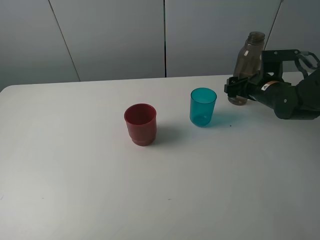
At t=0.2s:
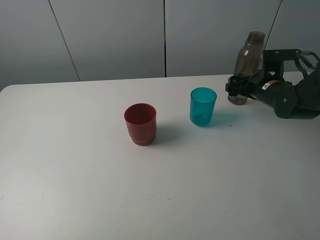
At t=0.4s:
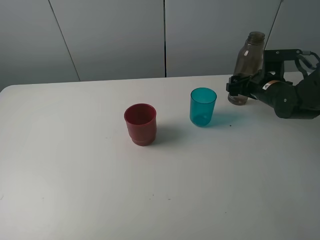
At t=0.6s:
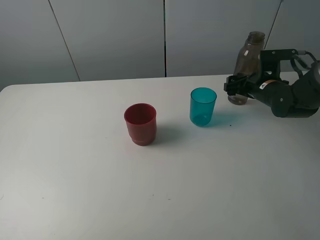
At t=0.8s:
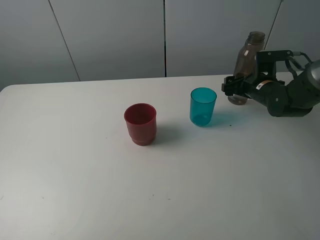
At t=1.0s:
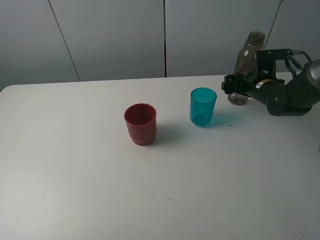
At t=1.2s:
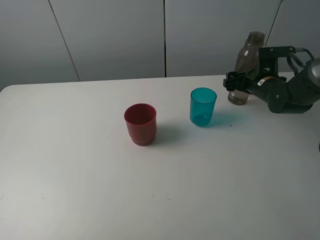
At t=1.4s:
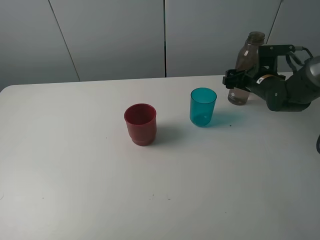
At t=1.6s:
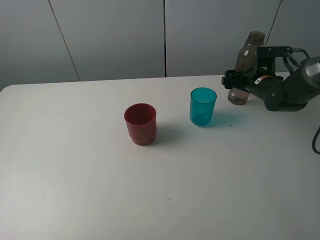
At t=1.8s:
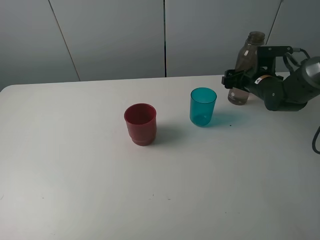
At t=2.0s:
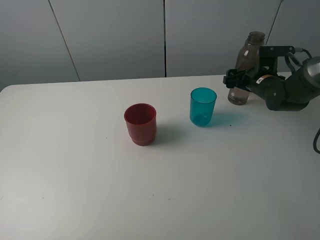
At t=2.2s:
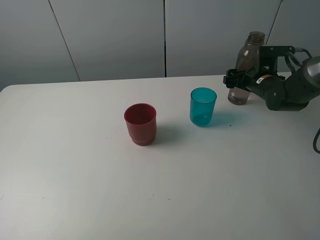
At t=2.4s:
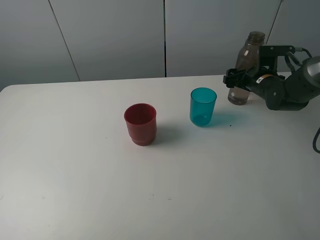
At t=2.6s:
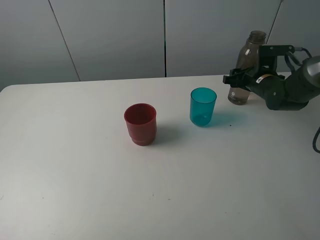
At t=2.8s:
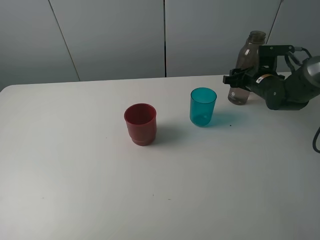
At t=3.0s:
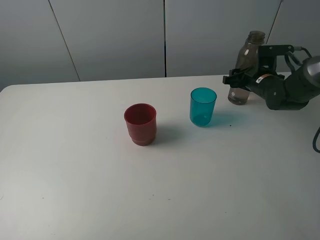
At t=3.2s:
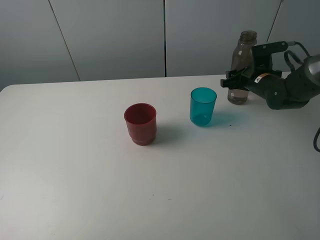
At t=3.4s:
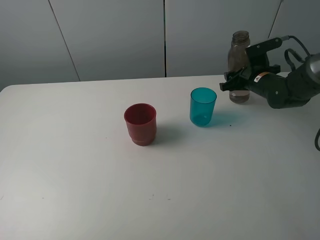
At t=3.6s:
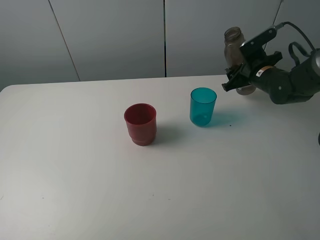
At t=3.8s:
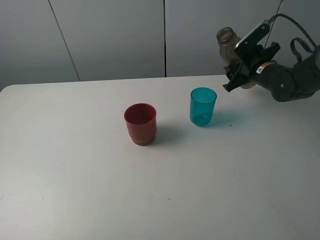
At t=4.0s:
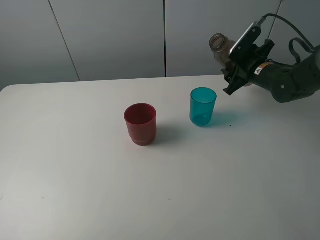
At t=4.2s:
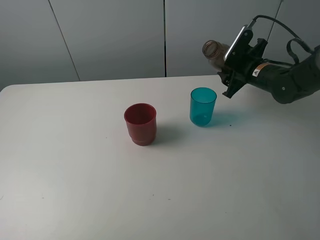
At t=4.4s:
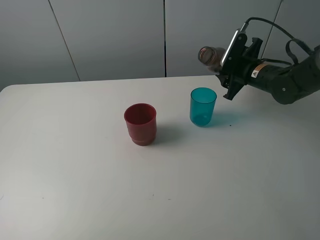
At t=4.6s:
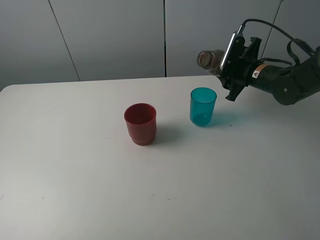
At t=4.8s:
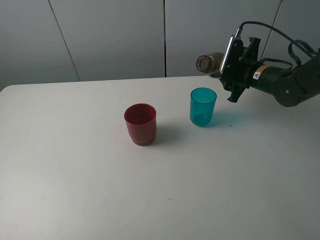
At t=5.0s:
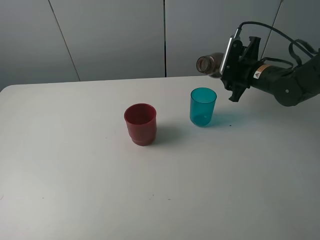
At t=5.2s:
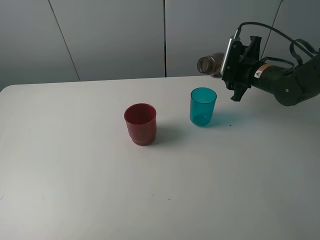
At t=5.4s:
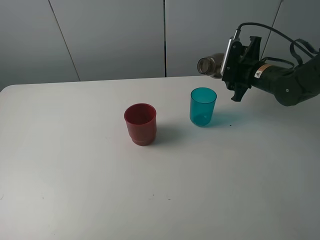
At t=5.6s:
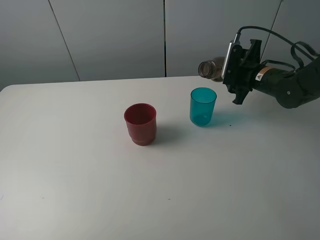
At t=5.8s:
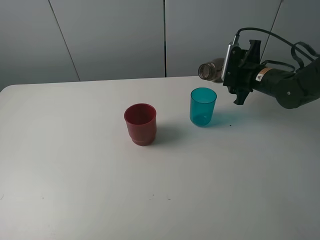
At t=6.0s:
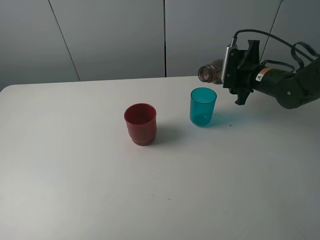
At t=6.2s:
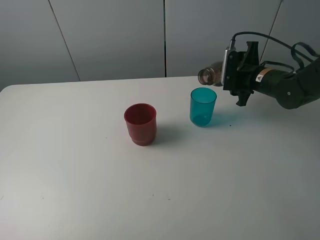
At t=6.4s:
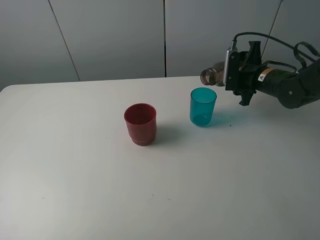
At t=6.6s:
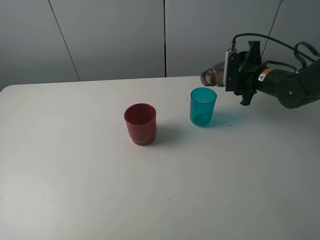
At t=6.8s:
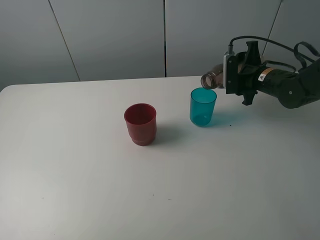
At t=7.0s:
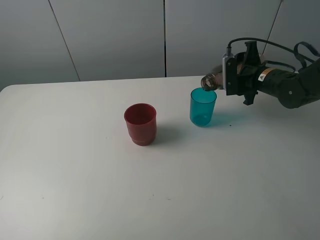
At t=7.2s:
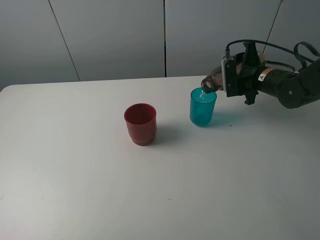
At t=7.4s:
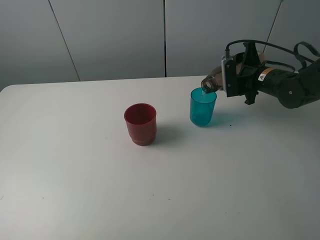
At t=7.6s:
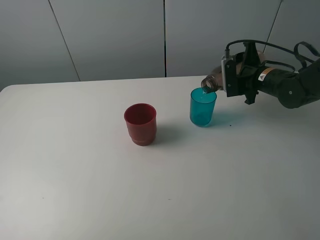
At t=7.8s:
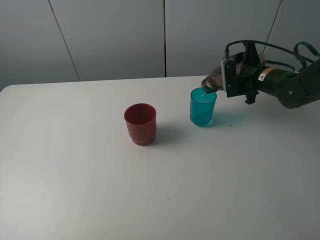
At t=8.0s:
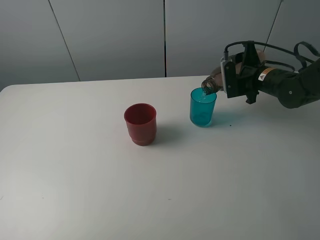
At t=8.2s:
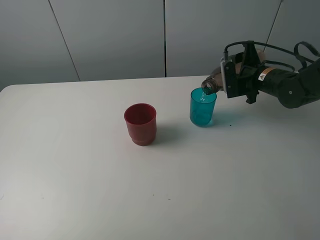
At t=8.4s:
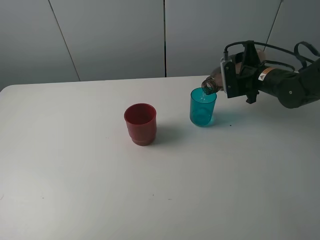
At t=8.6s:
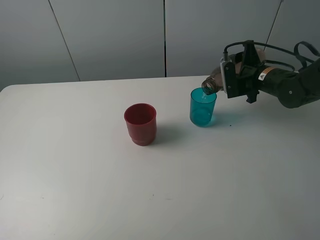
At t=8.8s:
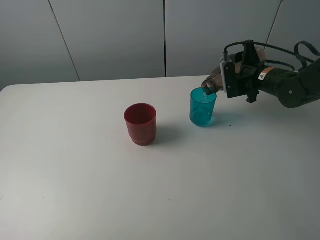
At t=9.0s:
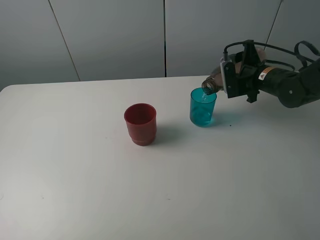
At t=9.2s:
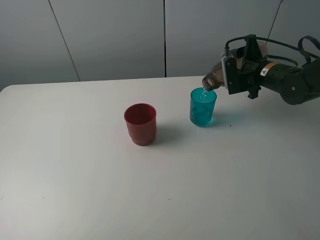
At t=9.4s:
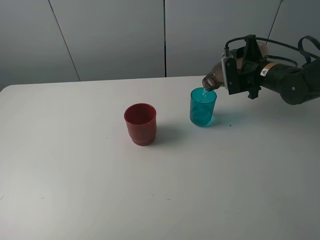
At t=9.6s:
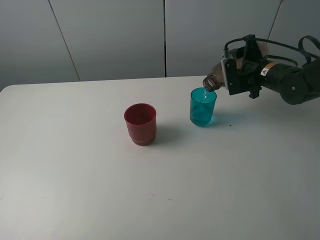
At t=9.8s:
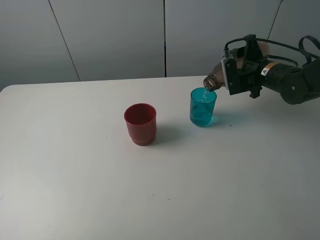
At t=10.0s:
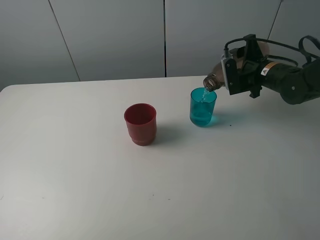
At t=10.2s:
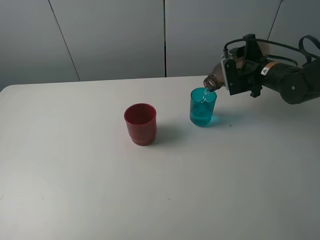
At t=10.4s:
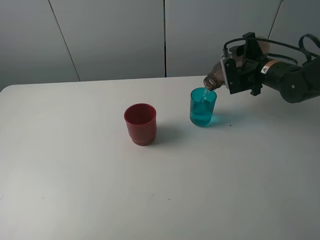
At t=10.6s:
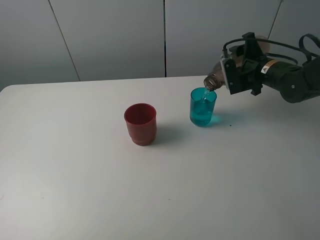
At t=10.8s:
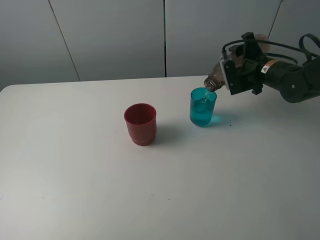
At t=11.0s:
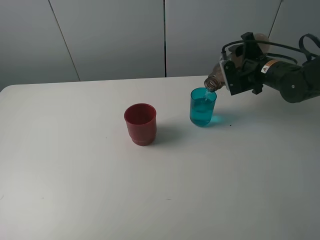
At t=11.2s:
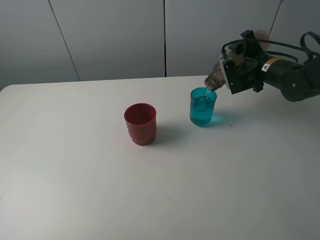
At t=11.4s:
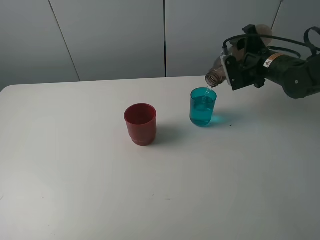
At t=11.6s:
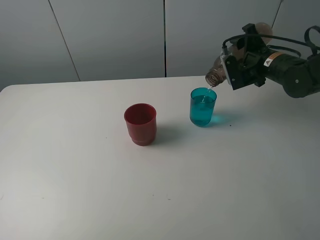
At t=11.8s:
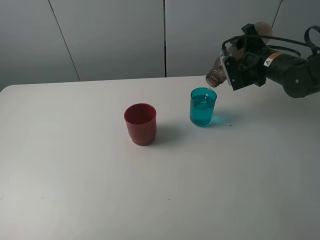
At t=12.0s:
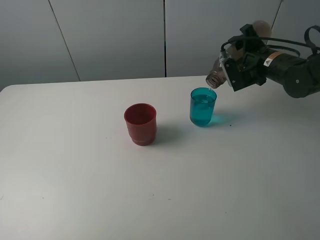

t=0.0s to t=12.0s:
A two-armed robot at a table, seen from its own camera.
Task of the whole recording: pick up the bottle and pour water into the cup, then pick up the cup containing water and pour it into another cup.
Step, t=0.0s to t=3.0s: Grasp the brown bottle with the right gripper.
t=0.0s to t=1.6s: The grippers stay close to where they were, moving slightly.
t=1.6s to t=3.0s: The right gripper closes.
t=4.4s to t=6.0s: The grippers make only small movements.
t=6.0s to t=7.6s: There are only small adjustments of the grippers.
t=7.6s to t=9.0s: Neither gripper changes place.
t=9.0s to t=12.0s: There are only small adjustments of the grippers.

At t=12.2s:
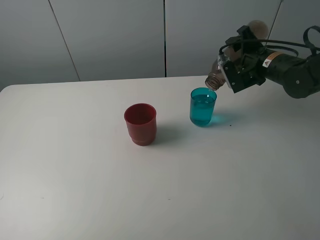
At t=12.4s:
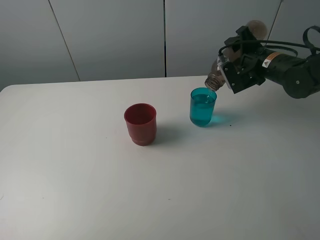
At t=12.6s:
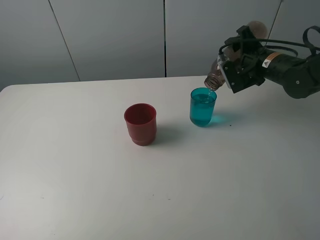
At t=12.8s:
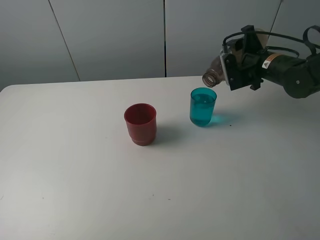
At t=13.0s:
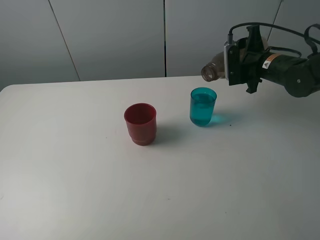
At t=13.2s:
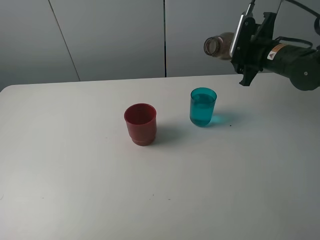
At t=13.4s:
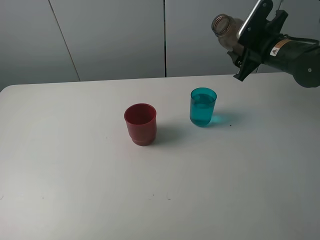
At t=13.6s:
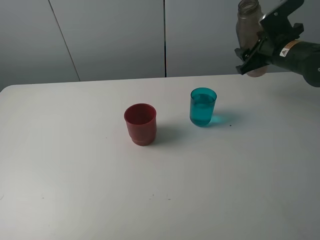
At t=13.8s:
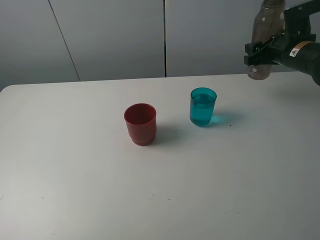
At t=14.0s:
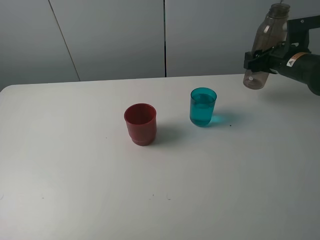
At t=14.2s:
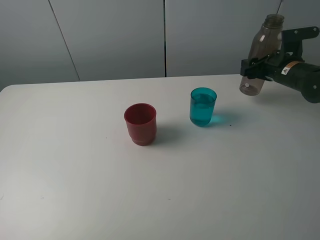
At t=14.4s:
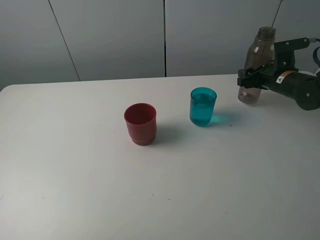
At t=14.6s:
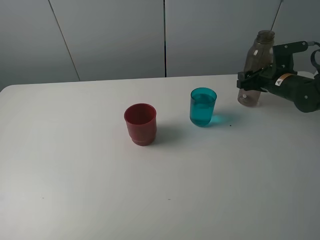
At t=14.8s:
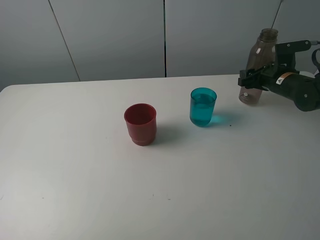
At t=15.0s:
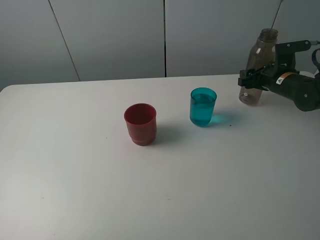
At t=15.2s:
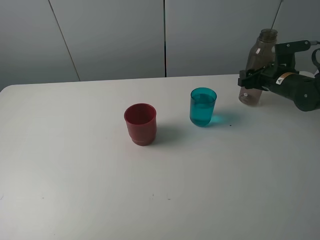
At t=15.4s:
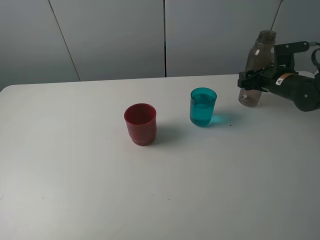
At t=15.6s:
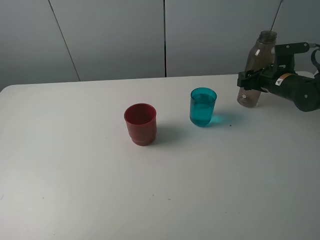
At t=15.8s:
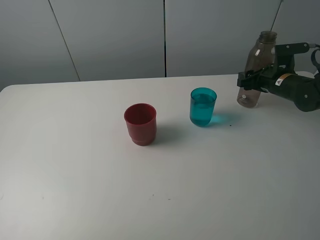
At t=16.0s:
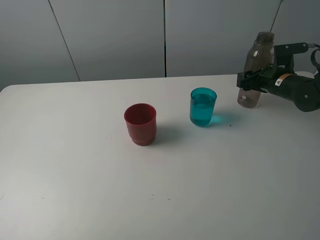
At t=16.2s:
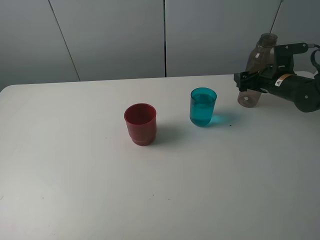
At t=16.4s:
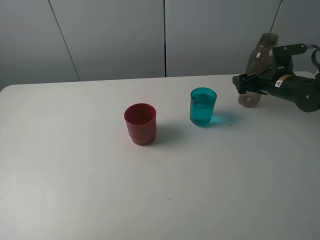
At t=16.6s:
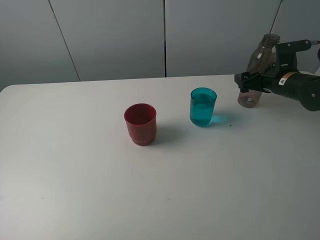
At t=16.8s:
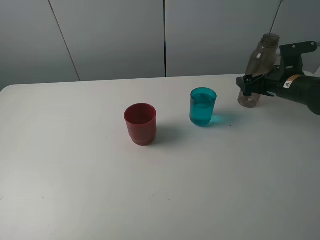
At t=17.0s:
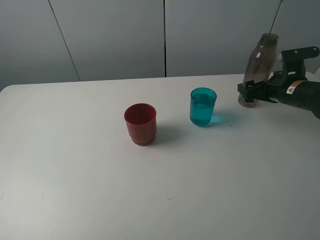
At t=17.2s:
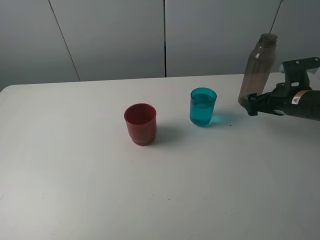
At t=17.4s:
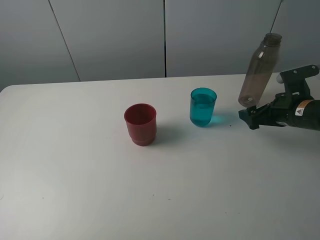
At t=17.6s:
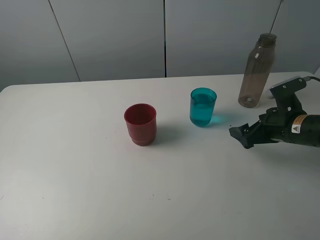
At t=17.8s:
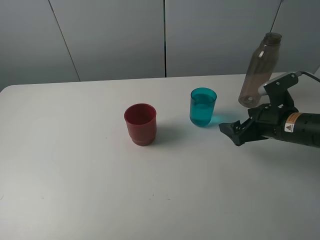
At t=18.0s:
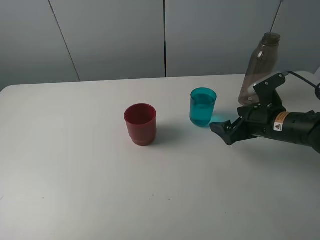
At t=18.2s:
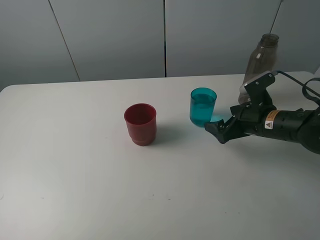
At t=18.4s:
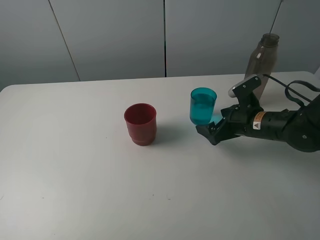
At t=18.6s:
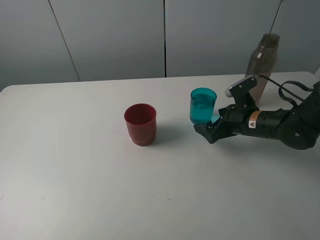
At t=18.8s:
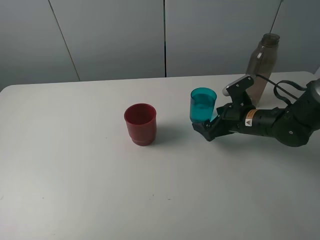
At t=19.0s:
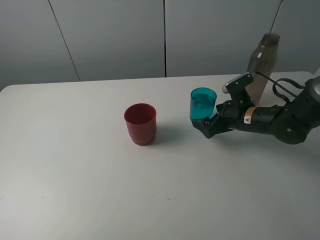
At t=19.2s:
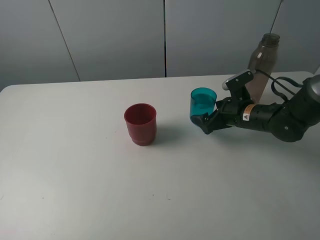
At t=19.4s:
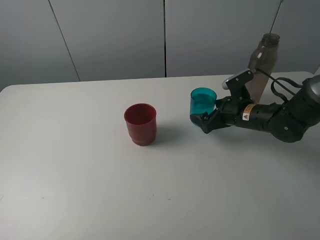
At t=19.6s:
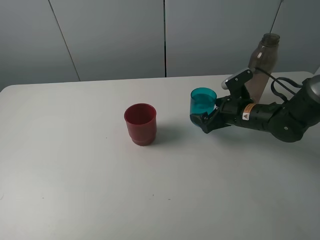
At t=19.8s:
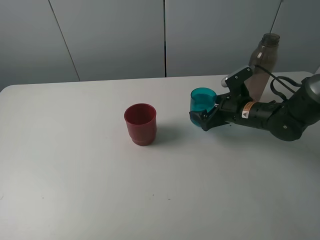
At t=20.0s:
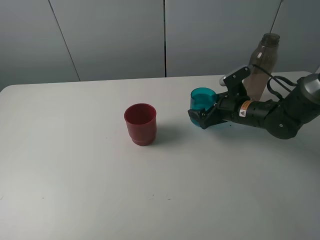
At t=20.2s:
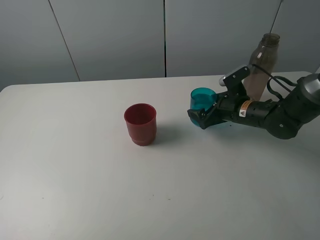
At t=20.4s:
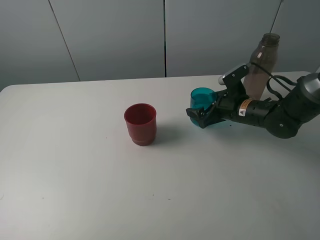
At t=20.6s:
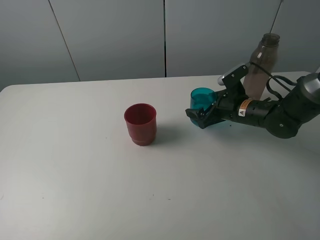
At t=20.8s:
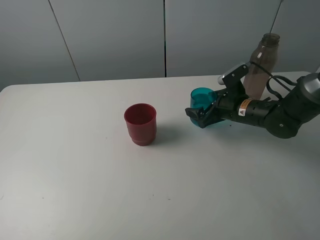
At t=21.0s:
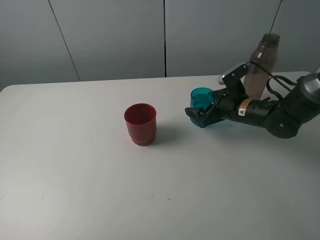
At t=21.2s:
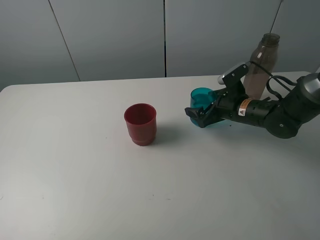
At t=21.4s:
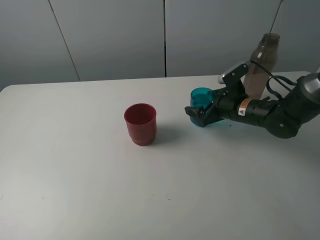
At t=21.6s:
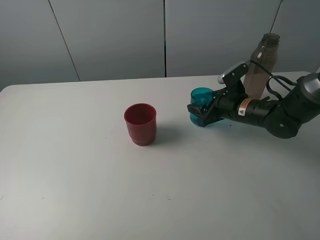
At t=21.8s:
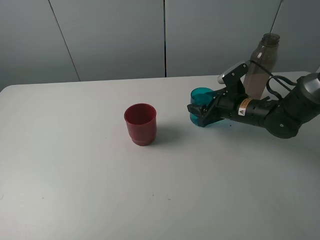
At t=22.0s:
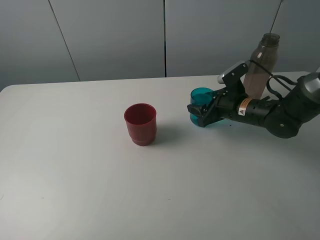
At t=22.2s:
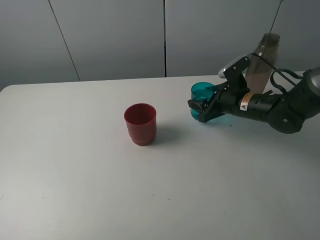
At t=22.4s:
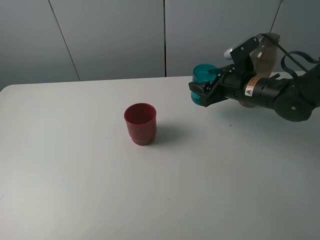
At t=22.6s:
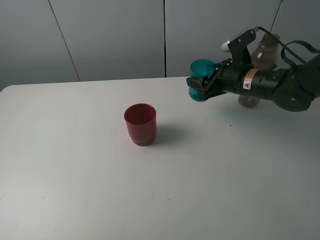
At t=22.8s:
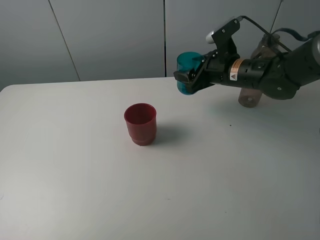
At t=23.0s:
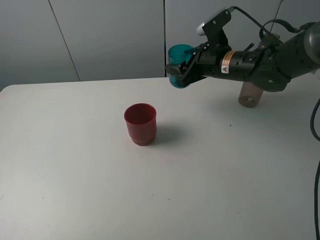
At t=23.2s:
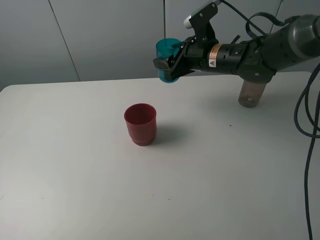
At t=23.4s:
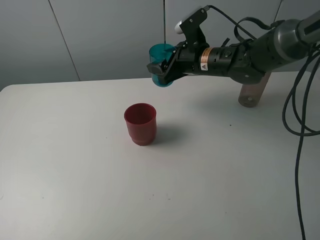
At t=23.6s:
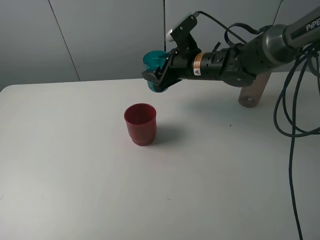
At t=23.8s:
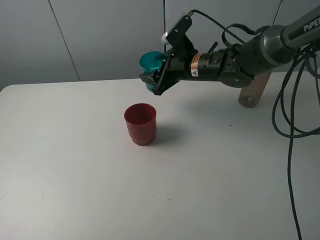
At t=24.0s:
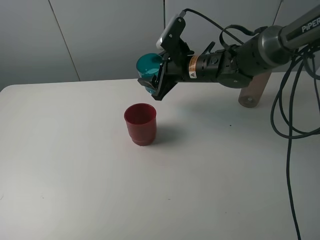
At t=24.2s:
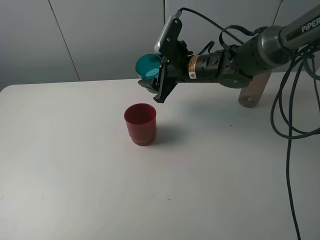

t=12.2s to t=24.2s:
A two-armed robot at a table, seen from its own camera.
Task of the whole recording: pick up the bottle and pour water into the cup, then pick up the cup containing water and pour it into another cup.
Step, t=12.8s to t=16.8s: Place the brown bottle with the right gripper.
Step, t=17.0s to t=21.8s: Grasp the blue cup with the right gripper.
t=12.2s to t=13.8s: The right gripper is displaced to the right by approximately 5 cm.
t=13.8s to t=15.2s: The right gripper goes about 10 cm downward.
t=15.2s to t=16.6s: The right gripper opens.
t=16.6s to t=18.2s: The right gripper moves backward and to the left, roughly 15 cm.
t=18.2s to t=19.8s: The right gripper shifts about 5 cm forward.
t=19.8s to t=21.2s: The two grippers keep their place.
t=21.2s to t=22.6s: The right gripper goes some 5 cm upward, and closes.
t=22.6s to t=24.2s: The right gripper goes some 10 cm to the left.
